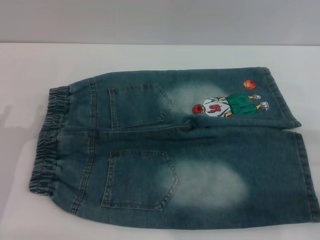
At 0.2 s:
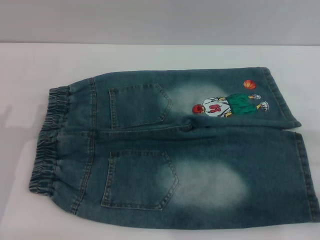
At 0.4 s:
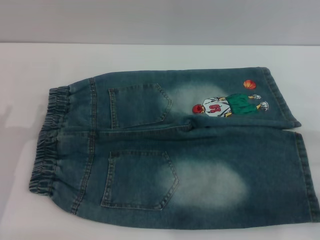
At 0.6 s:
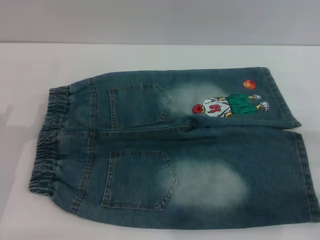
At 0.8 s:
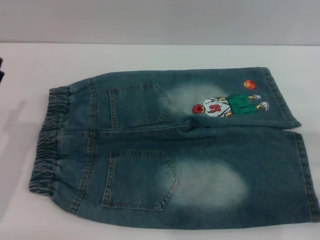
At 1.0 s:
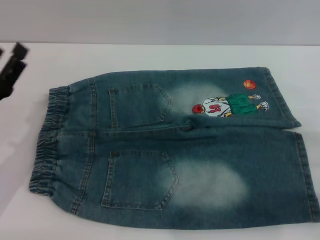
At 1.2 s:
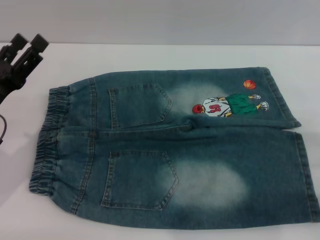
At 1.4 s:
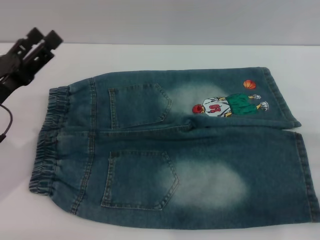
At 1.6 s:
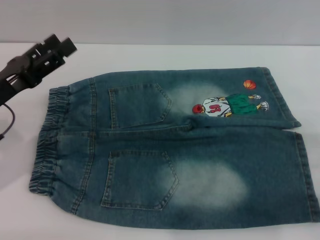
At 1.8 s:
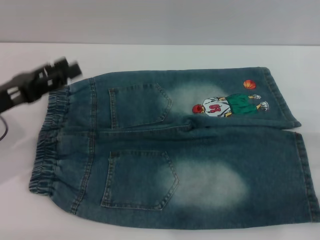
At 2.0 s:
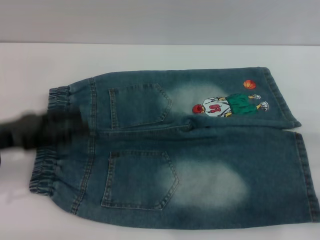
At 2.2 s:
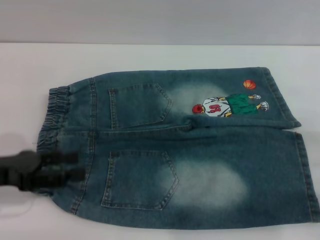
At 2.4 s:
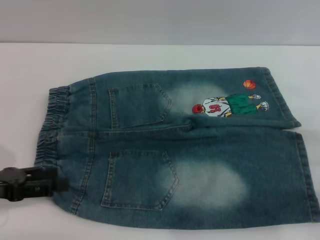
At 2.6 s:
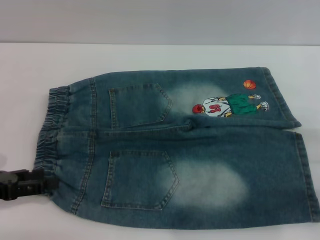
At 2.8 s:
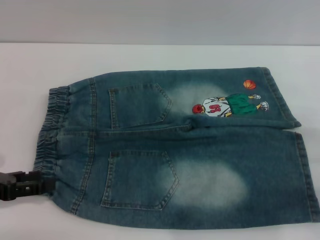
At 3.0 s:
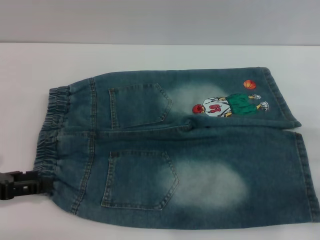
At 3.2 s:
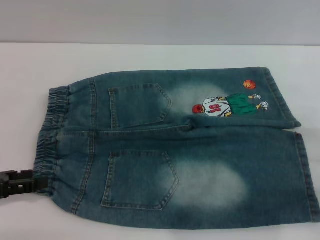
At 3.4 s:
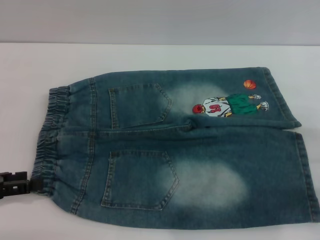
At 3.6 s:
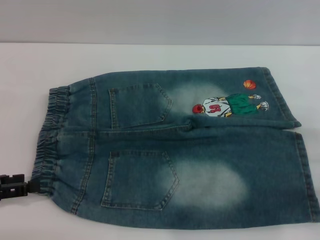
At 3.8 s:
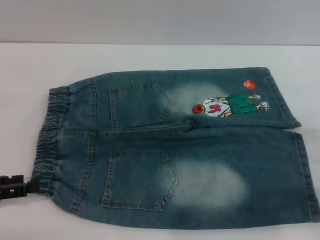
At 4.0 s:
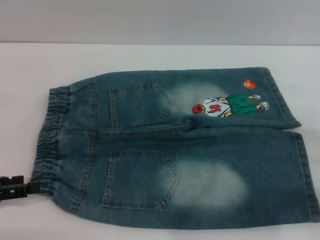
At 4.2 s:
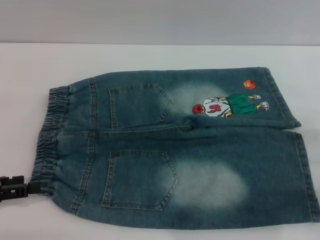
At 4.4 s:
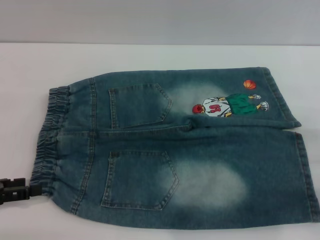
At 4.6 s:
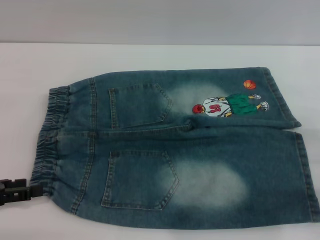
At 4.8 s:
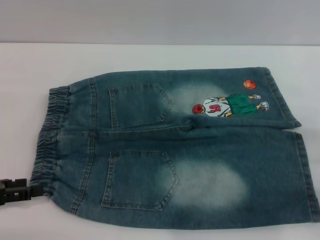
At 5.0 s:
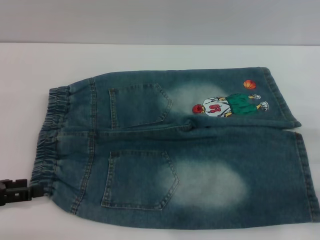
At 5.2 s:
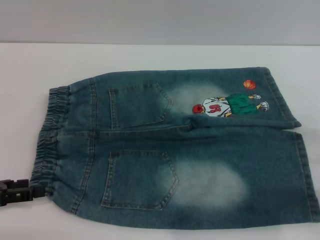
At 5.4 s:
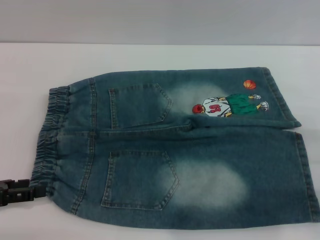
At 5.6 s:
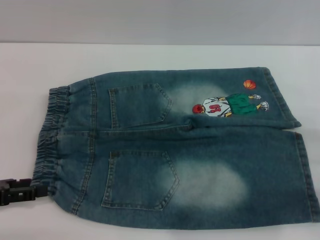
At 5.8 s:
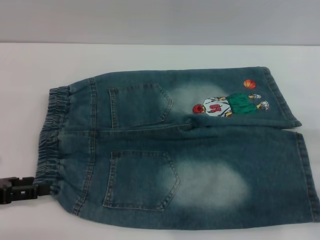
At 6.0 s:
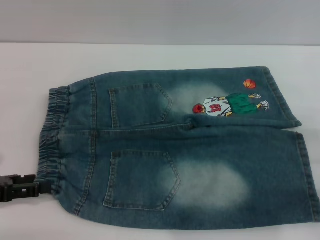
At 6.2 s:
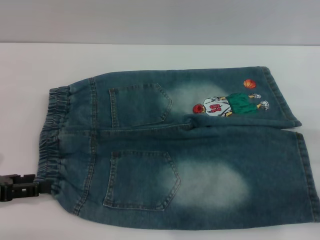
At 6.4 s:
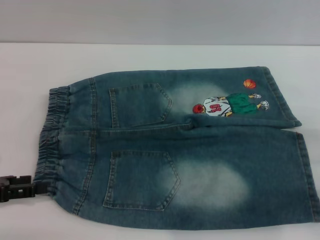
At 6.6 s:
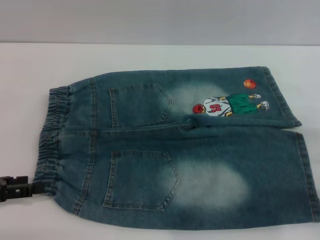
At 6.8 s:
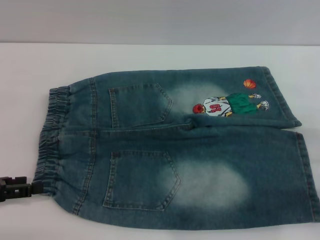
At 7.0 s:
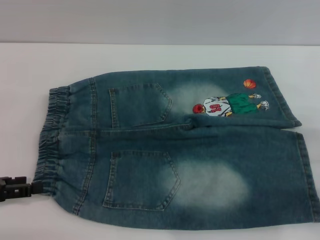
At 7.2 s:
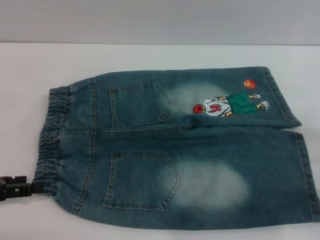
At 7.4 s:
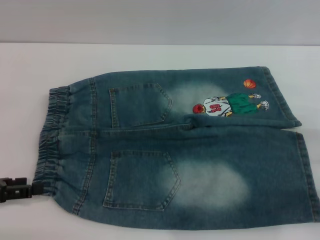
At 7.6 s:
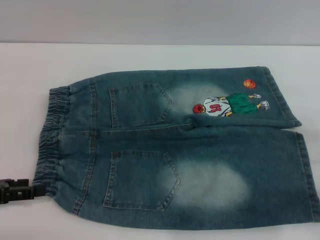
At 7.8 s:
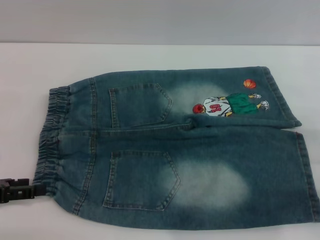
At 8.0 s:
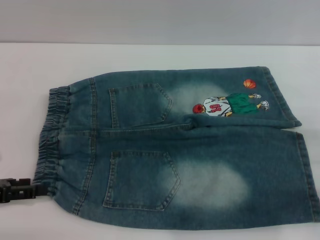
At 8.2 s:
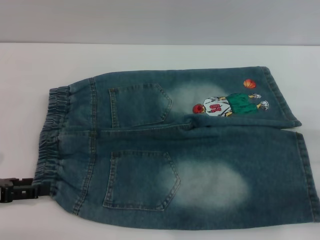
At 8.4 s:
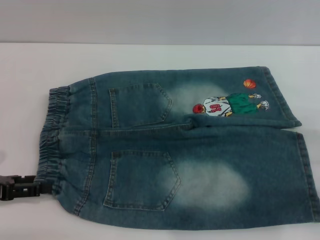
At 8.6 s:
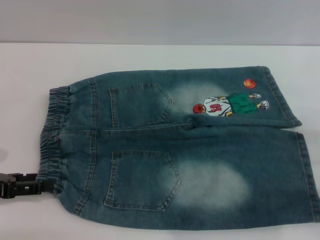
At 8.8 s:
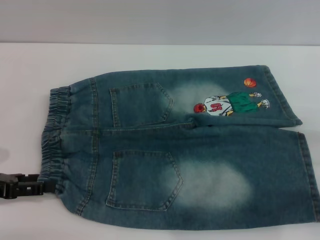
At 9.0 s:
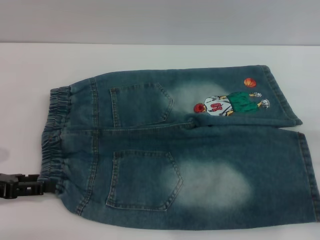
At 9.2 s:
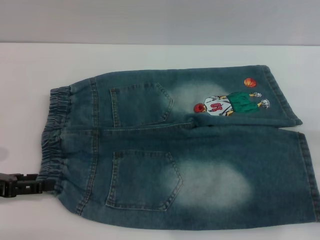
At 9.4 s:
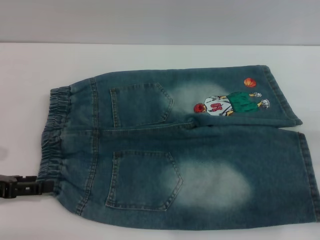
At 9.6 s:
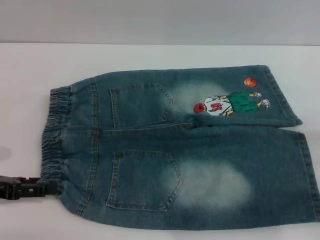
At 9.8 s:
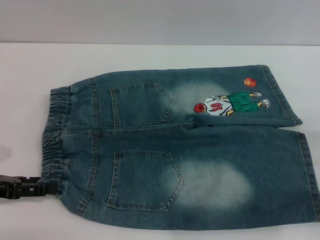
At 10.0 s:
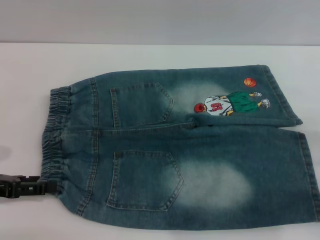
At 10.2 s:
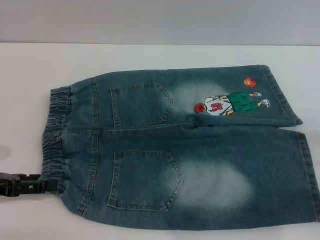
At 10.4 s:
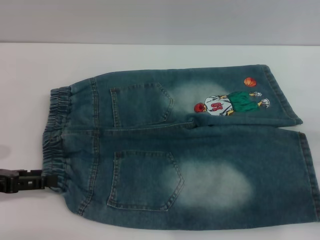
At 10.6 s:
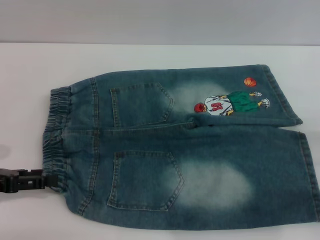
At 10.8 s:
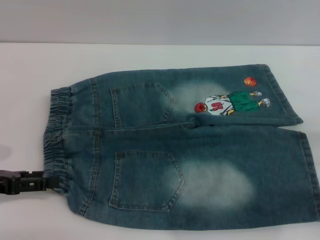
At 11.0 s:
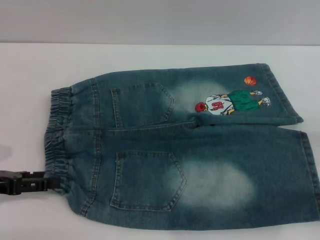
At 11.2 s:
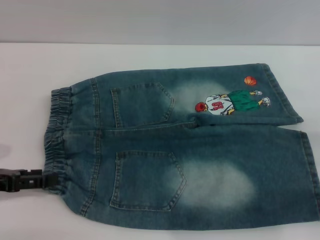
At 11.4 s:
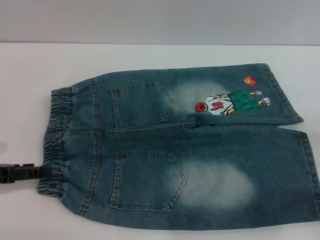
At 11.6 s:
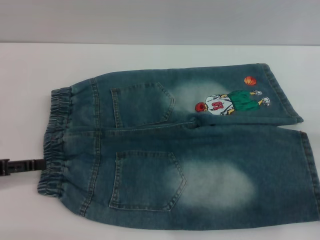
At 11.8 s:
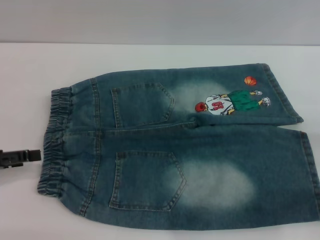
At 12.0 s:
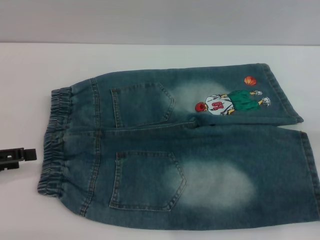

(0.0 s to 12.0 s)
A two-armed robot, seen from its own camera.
0.0 s - 1.6 s: The left gripper is displaced upward and forward by roughly 10 cm.
1.6 s - 3.0 s: The left gripper moves to the left and backward, about 10 cm.
3.0 s - 4.4 s: The grippers make only small movements.
4.4 s - 6.0 s: Both grippers stay put.
6.0 s - 7.6 s: Both grippers stay about where they are.
7.6 s - 9.0 s: The grippers move only a little.
9.0 s - 10.4 s: Both grippers stay about where they are.
10.4 s - 12.0 s: There are only small adjustments of the grippers.

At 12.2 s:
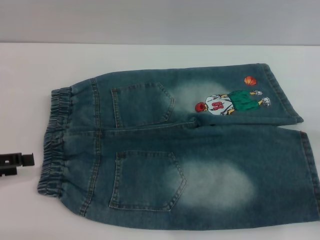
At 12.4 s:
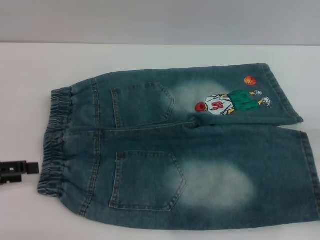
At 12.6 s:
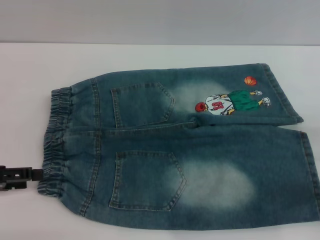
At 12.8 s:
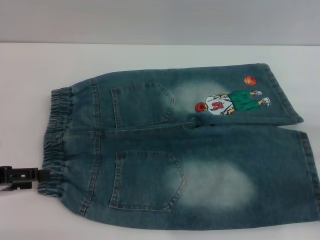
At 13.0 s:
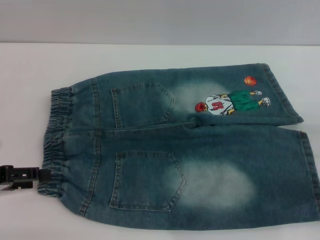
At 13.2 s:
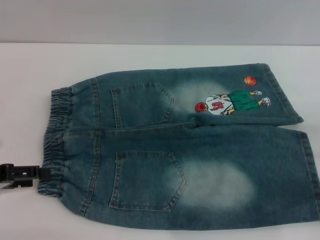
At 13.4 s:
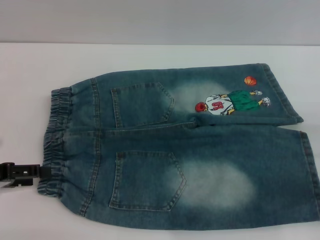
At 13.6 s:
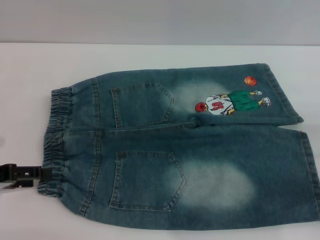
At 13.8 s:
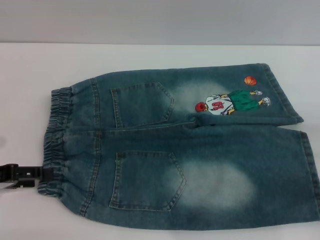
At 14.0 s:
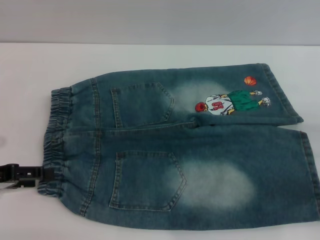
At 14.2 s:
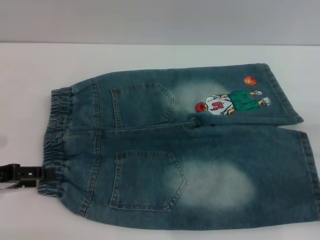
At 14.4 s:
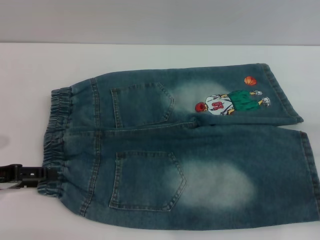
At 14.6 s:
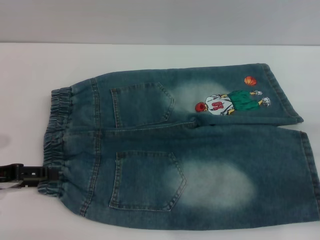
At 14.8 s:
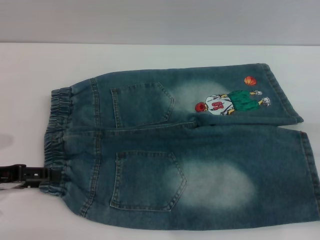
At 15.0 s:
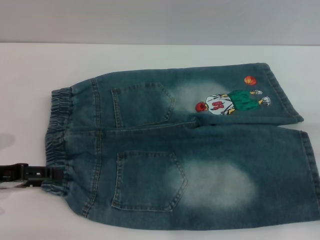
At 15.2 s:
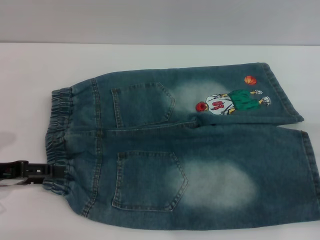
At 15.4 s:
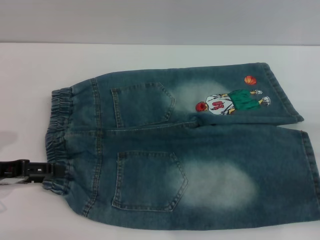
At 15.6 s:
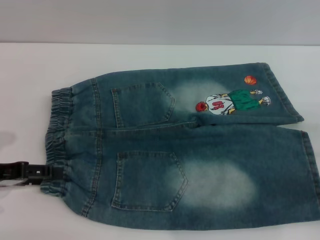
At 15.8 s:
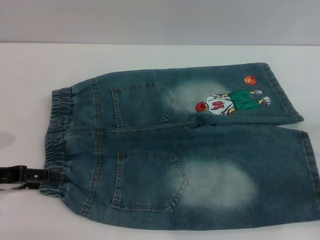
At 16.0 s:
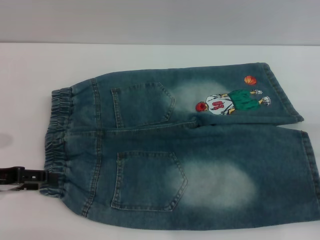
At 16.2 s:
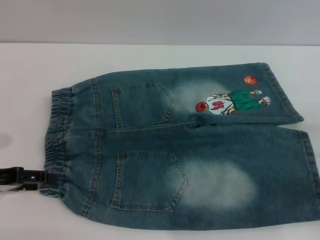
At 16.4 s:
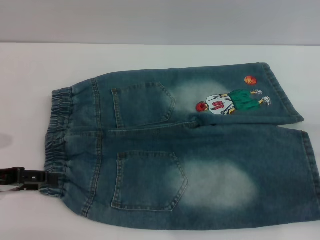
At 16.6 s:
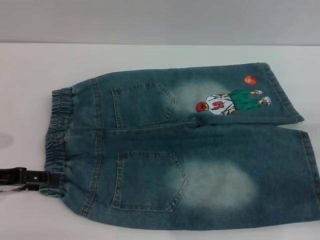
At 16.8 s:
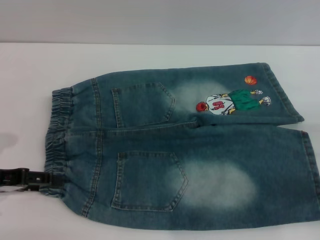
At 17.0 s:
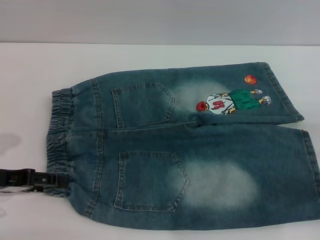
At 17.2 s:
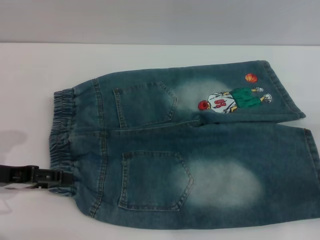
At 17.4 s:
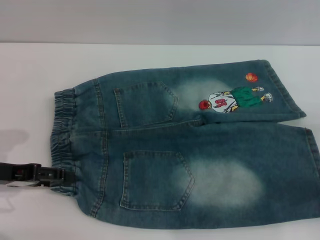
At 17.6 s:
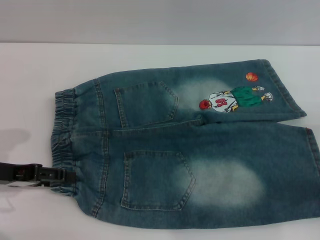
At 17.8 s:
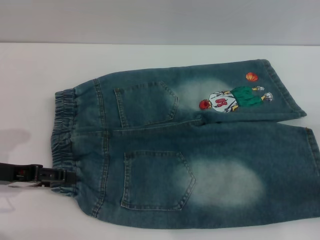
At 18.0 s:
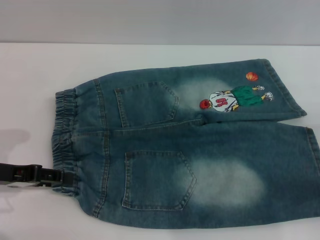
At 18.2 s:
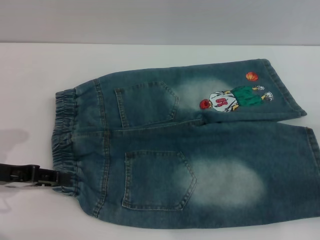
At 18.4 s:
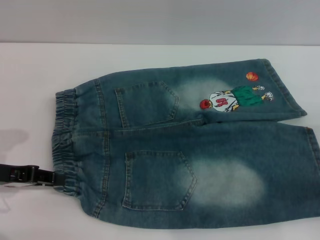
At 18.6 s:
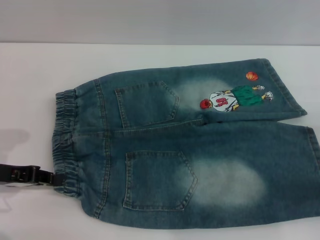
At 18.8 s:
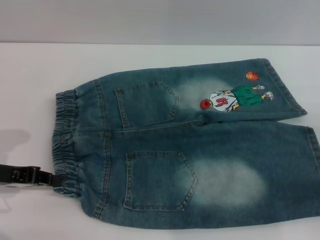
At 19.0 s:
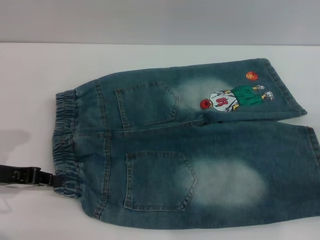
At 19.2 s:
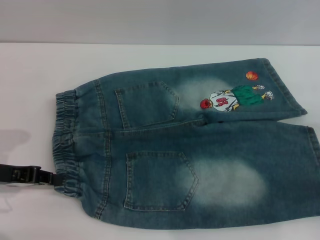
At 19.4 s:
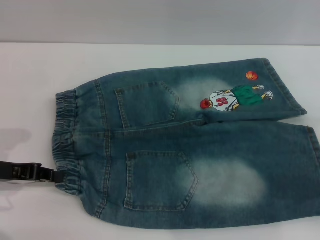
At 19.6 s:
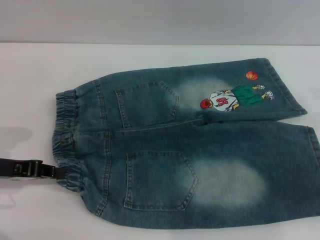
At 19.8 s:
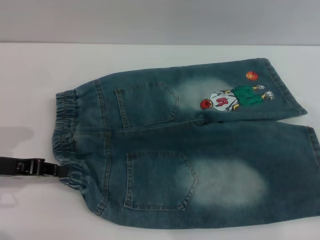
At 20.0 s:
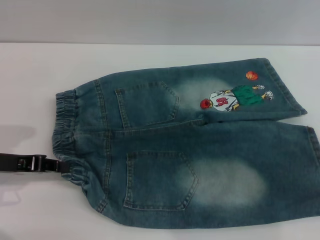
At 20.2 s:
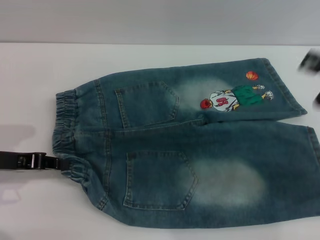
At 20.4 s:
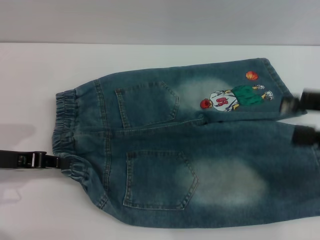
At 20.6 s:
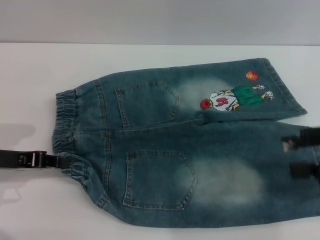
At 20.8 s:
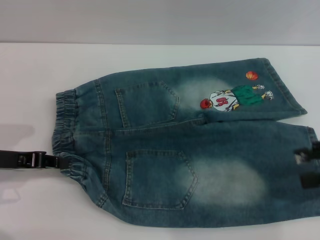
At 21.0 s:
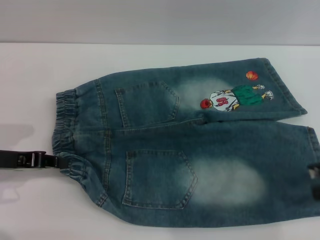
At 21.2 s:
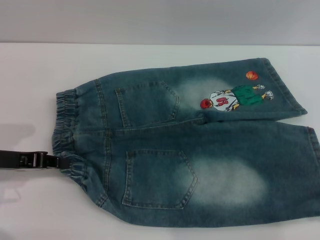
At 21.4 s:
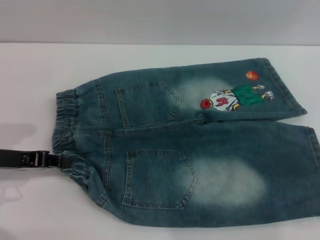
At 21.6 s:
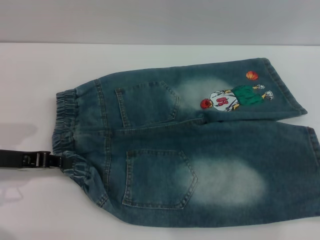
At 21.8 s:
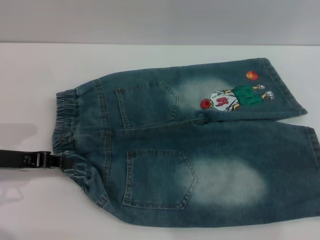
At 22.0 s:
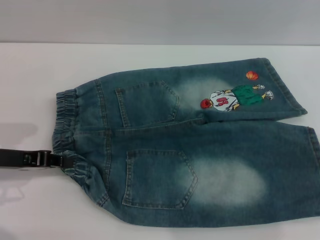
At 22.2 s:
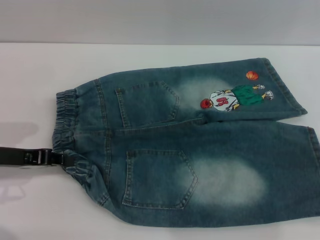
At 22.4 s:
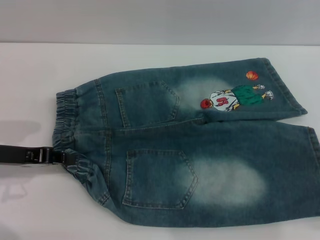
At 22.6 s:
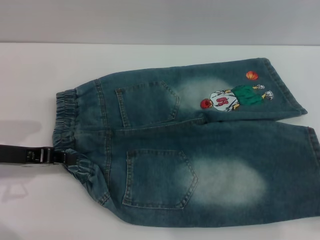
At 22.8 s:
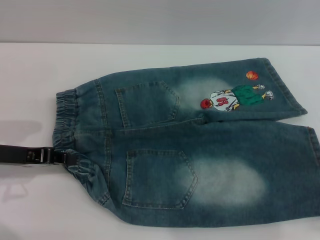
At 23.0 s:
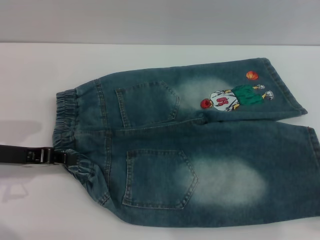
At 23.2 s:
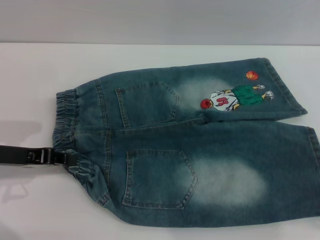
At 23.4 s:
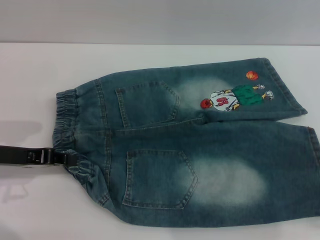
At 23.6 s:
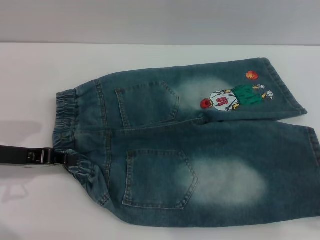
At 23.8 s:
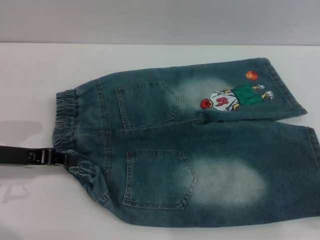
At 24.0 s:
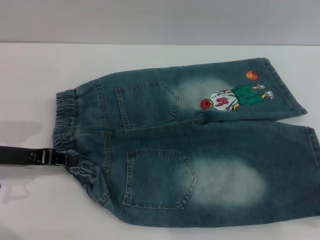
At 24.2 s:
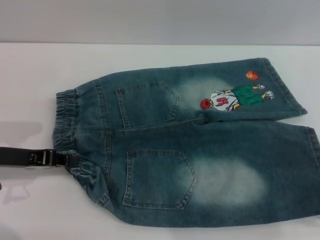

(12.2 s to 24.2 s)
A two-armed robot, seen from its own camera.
12.2 s - 13.8 s: The grippers make only small movements.
13.8 s - 15.2 s: Neither gripper changes place.
15.2 s - 16.6 s: Both grippers stay about where they are.
16.6 s - 18.2 s: The grippers stay close to where they were, moving slightly.
18.2 s - 19.8 s: The right gripper travels upward by roughly 10 cm. Meanwhile the left gripper closes up.
22.6 s - 24.2 s: The grippers make only small movements.
